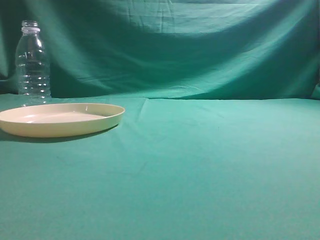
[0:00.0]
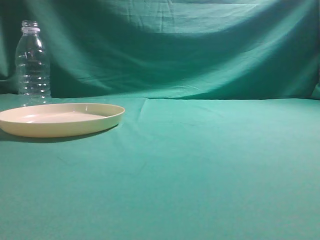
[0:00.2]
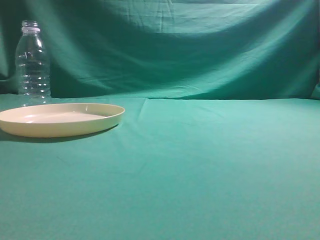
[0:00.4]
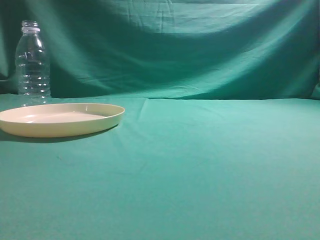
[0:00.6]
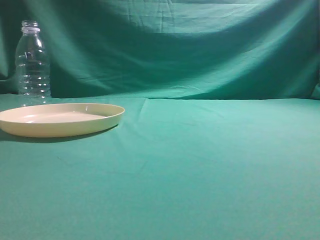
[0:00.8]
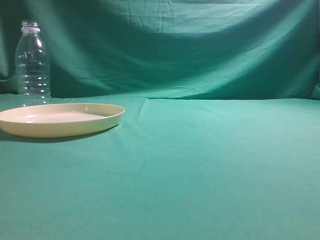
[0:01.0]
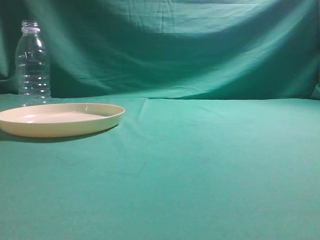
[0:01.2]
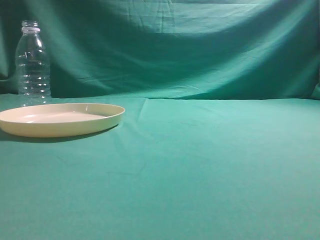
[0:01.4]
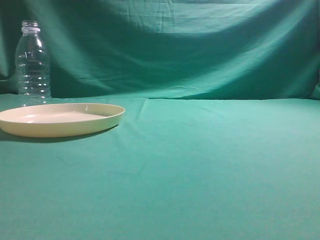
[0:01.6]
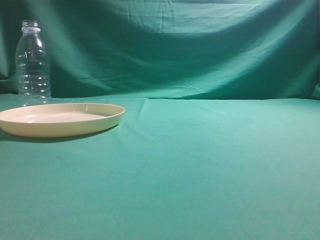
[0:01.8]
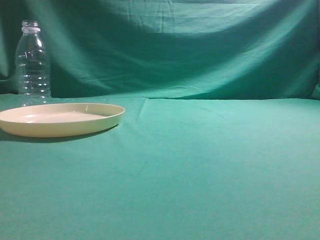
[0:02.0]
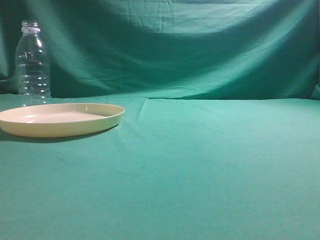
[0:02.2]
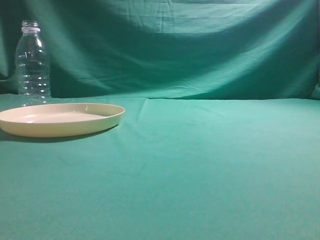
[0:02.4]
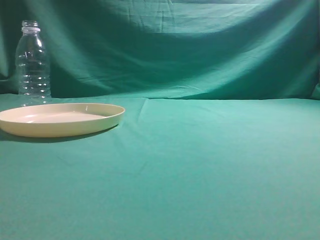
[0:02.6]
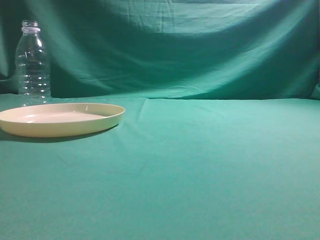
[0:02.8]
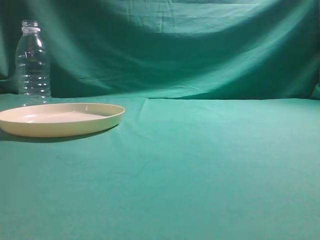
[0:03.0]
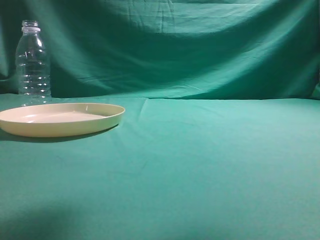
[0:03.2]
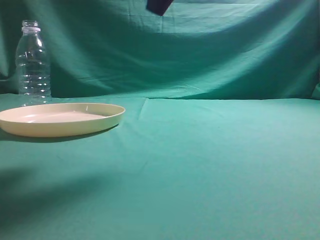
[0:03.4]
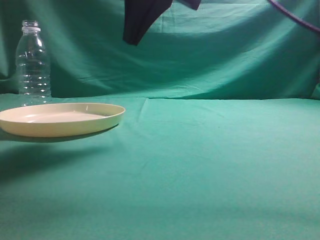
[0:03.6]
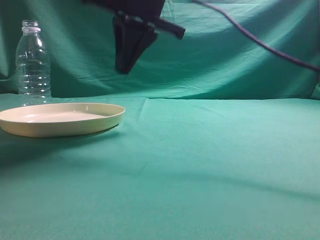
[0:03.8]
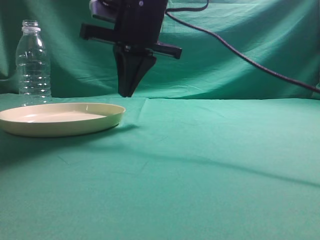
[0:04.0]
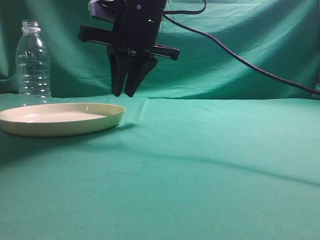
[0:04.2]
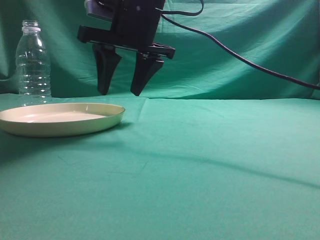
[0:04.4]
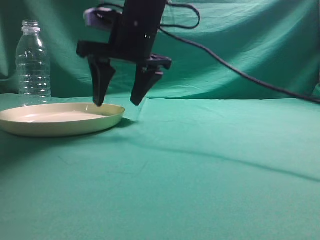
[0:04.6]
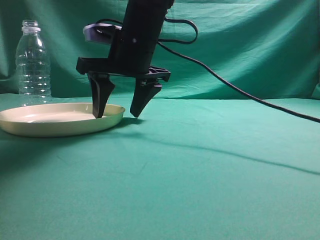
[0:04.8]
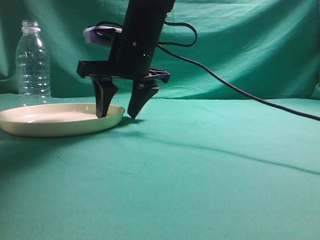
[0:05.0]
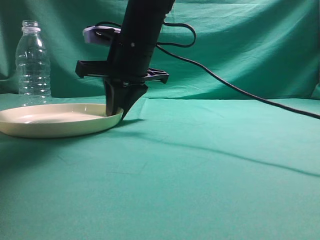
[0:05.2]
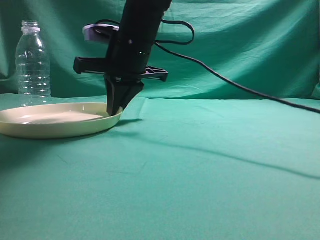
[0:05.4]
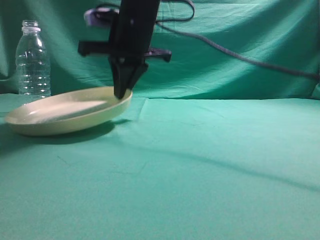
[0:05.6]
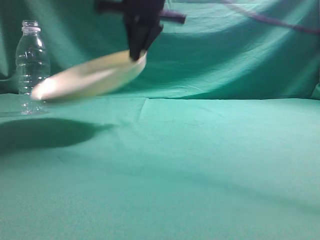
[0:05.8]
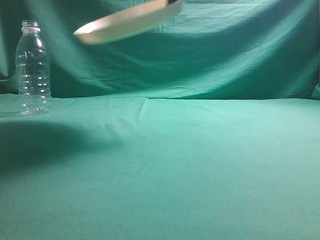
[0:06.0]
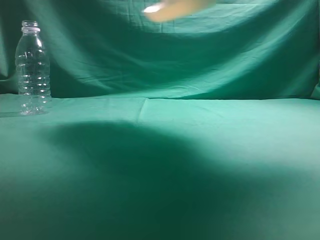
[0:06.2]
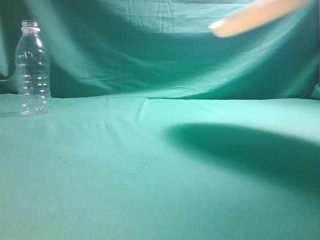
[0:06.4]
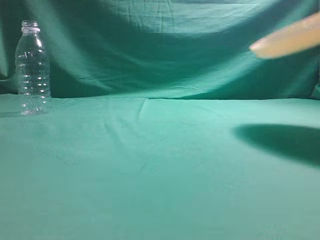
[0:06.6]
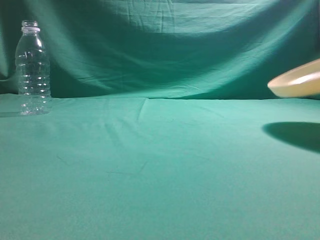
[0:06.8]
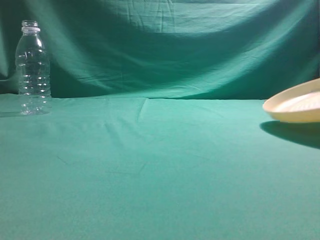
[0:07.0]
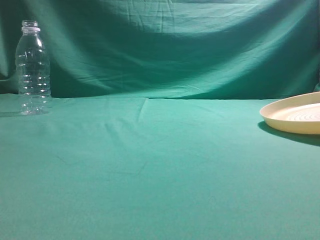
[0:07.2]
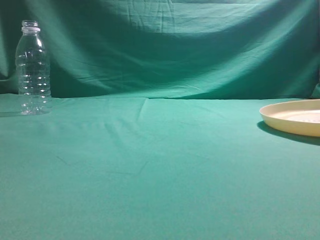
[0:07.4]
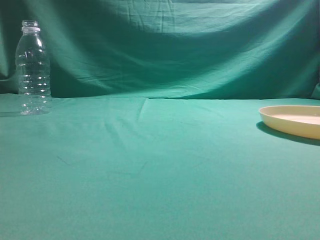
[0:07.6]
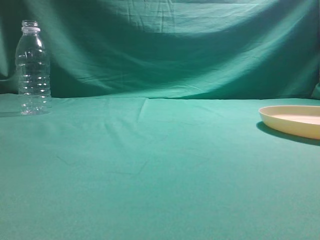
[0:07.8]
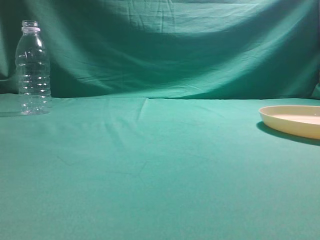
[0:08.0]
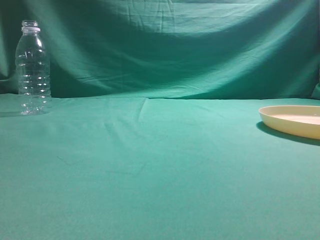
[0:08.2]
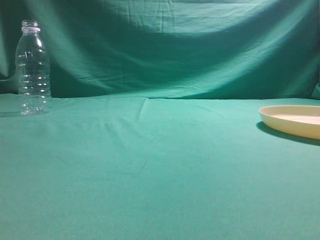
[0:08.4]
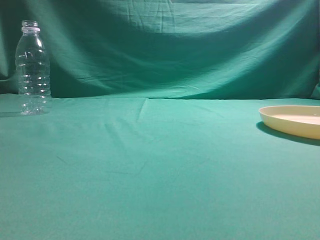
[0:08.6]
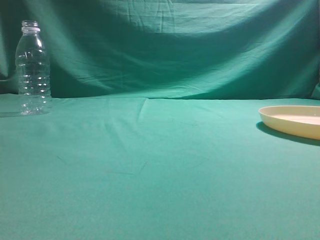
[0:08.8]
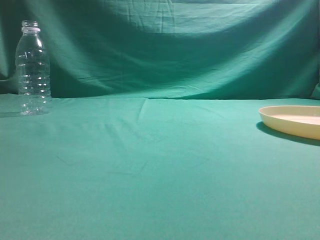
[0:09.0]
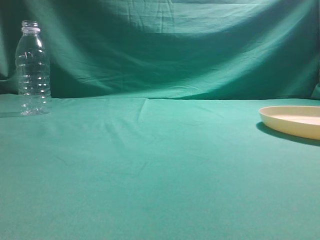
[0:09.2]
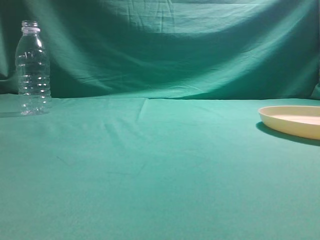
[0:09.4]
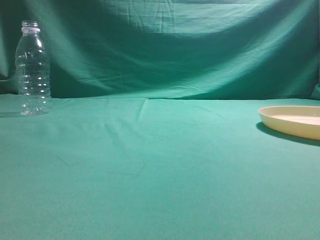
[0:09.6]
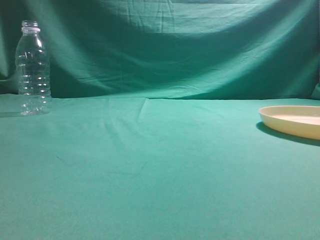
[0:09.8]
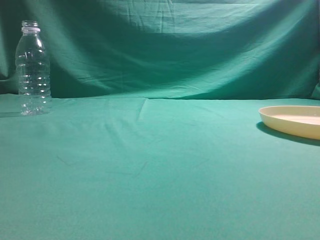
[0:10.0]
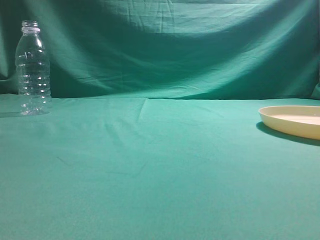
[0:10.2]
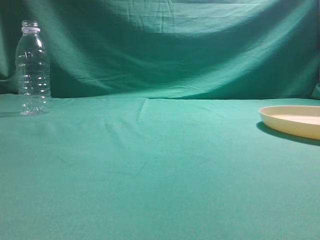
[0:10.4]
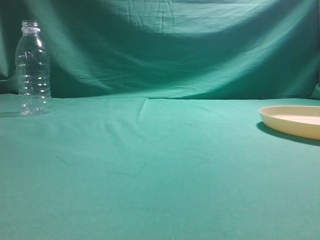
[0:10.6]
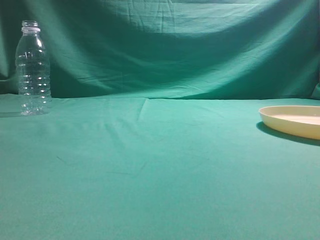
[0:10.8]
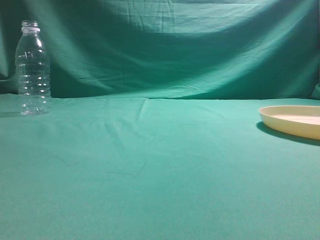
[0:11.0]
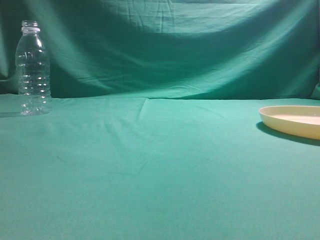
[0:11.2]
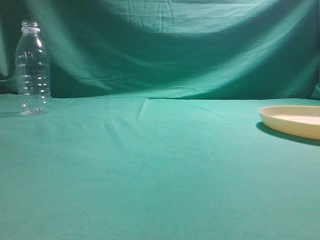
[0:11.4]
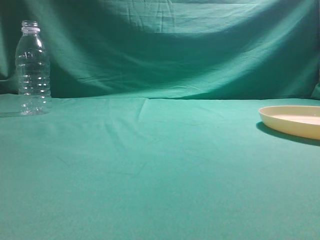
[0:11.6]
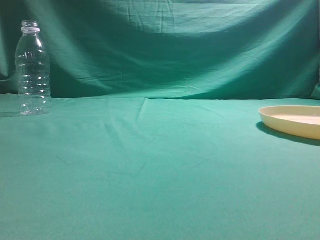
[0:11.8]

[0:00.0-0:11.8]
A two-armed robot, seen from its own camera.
Step, 0:00.0 to 0:05.8: Pick the container that can hold fruits.
Step, 0:06.0 to 0:08.2: Move the picked object to the right side of the table.
0:03.0 to 0:04.4: The right gripper is displaced to the left, forward and downward by roughly 35 cm, and opens.
0:04.4 to 0:06.0: The right gripper is displaced upward by roughly 10 cm, and closes its fingers.
0:06.0 to 0:07.4: The right gripper shifts about 35 cm to the right and downward.
0:07.4 to 0:08.8: The right gripper moves upward and backward, approximately 30 cm, and opens and closes again.
